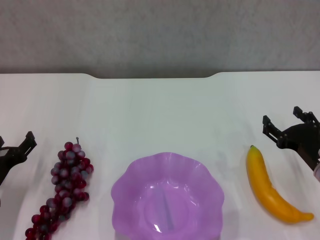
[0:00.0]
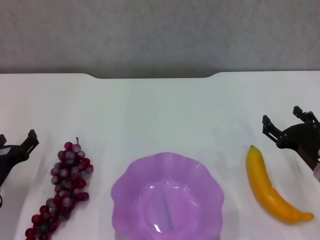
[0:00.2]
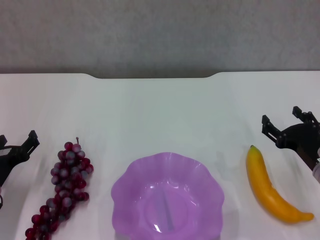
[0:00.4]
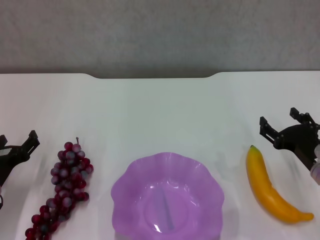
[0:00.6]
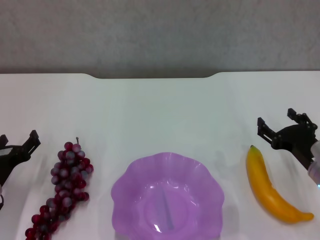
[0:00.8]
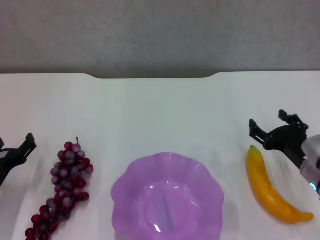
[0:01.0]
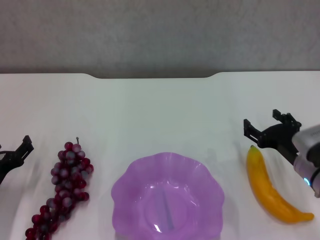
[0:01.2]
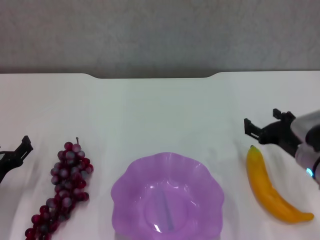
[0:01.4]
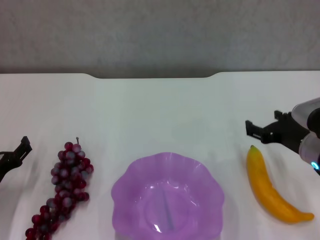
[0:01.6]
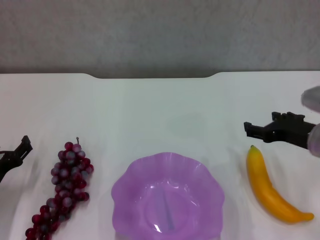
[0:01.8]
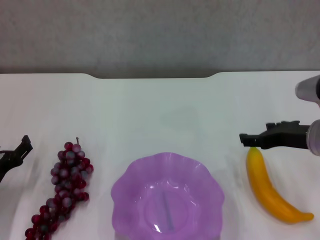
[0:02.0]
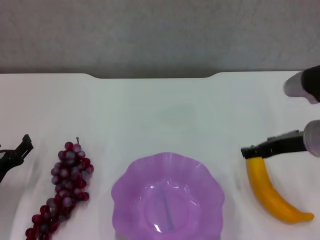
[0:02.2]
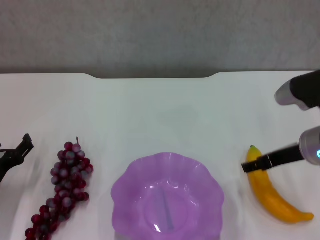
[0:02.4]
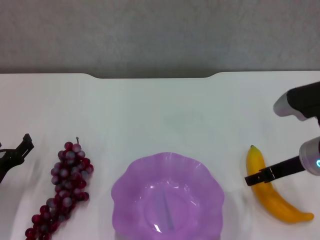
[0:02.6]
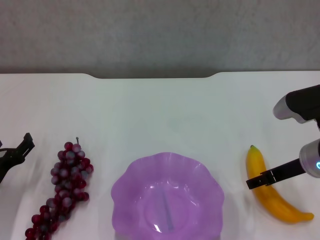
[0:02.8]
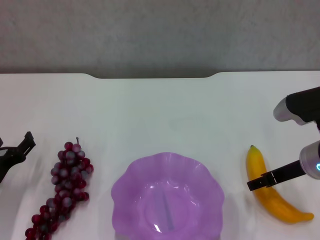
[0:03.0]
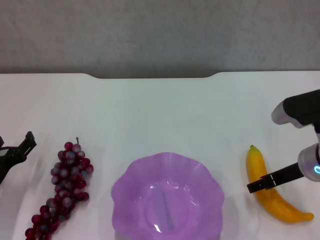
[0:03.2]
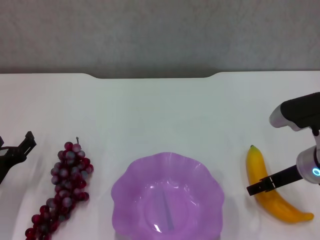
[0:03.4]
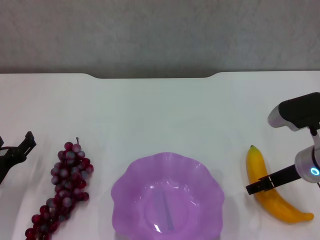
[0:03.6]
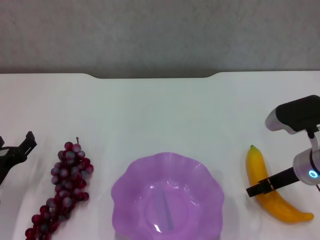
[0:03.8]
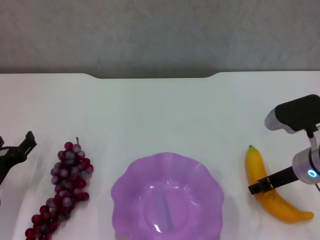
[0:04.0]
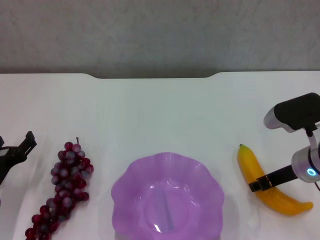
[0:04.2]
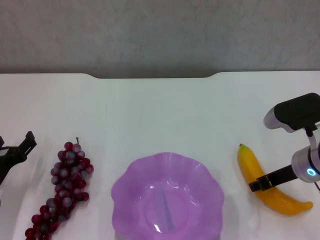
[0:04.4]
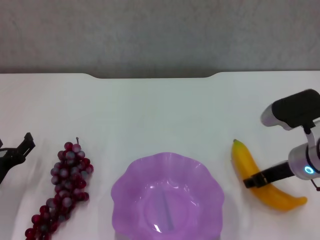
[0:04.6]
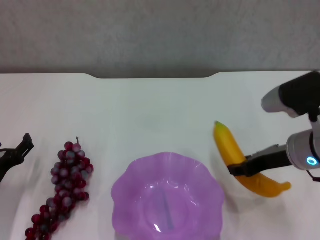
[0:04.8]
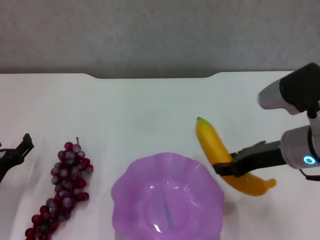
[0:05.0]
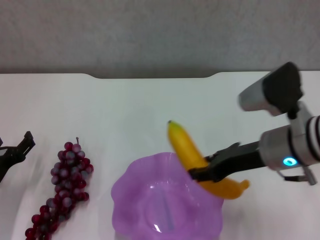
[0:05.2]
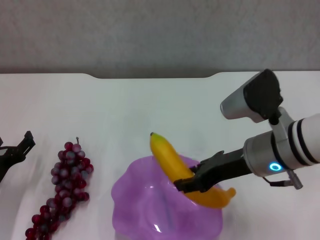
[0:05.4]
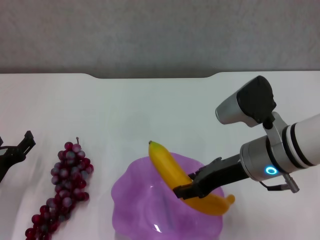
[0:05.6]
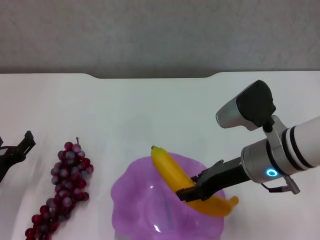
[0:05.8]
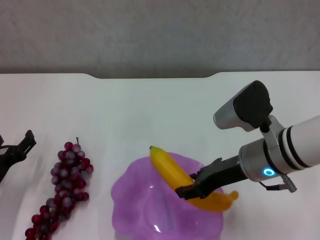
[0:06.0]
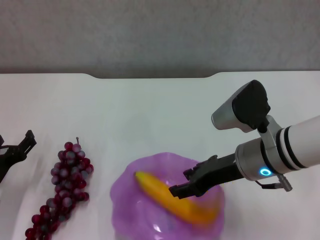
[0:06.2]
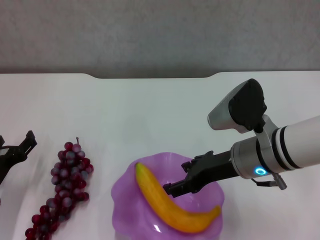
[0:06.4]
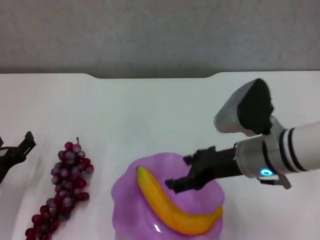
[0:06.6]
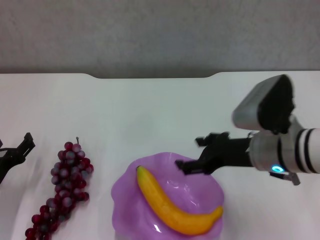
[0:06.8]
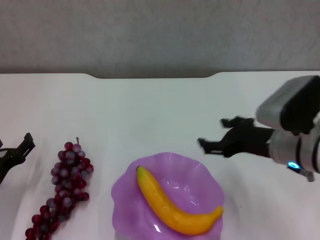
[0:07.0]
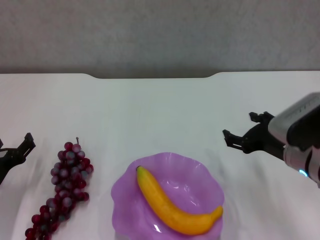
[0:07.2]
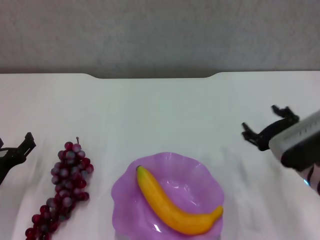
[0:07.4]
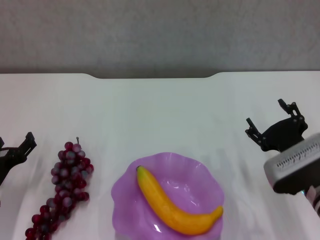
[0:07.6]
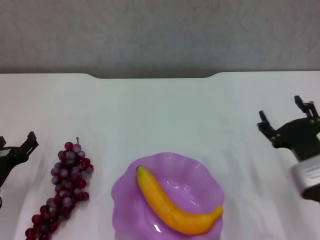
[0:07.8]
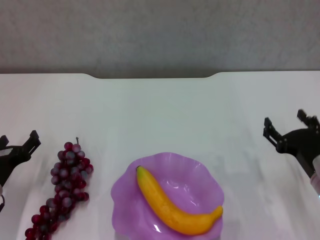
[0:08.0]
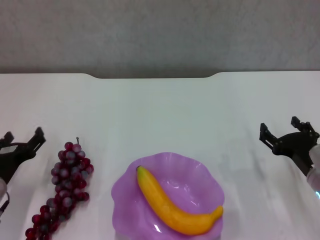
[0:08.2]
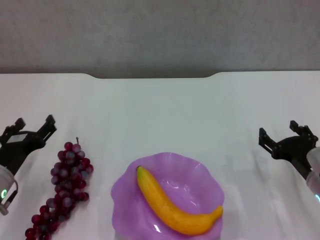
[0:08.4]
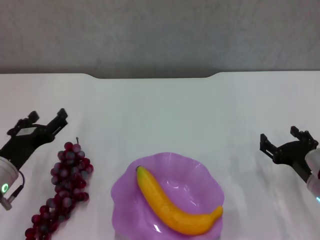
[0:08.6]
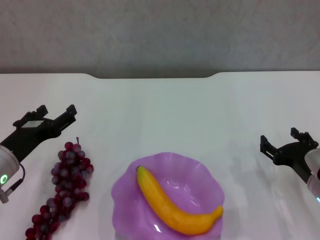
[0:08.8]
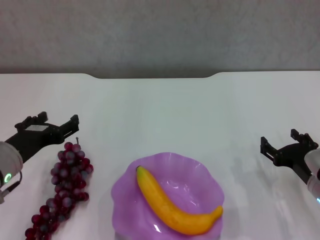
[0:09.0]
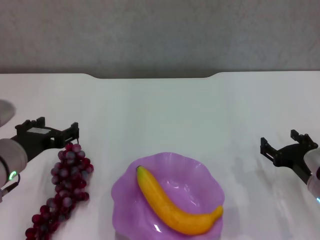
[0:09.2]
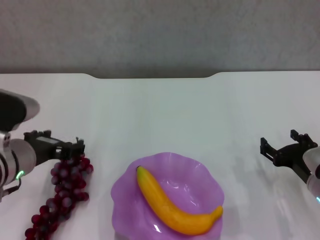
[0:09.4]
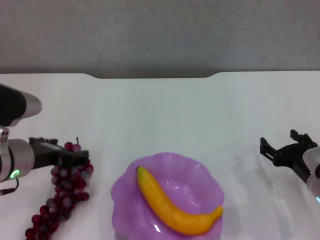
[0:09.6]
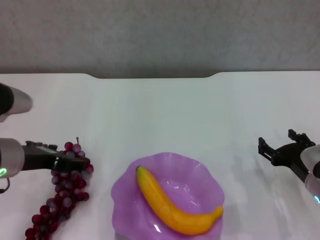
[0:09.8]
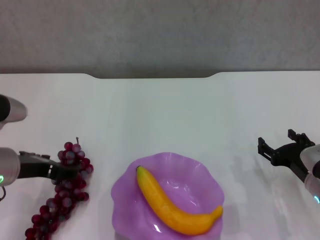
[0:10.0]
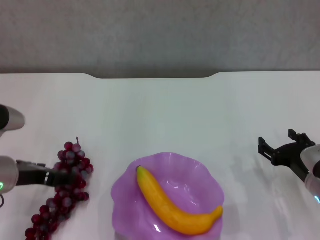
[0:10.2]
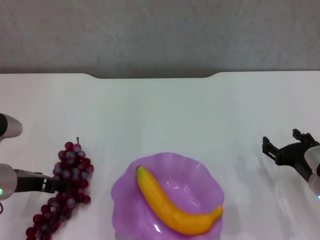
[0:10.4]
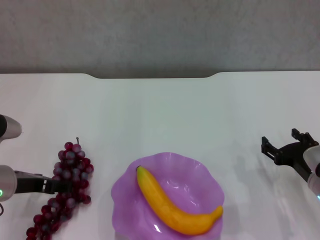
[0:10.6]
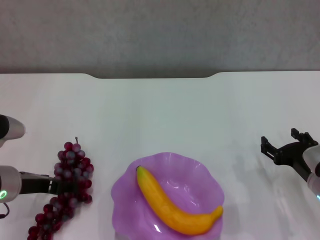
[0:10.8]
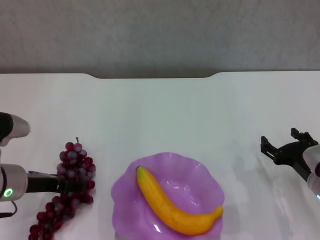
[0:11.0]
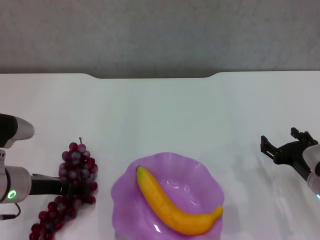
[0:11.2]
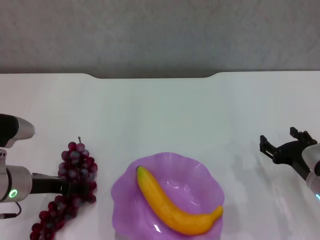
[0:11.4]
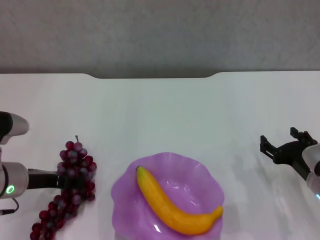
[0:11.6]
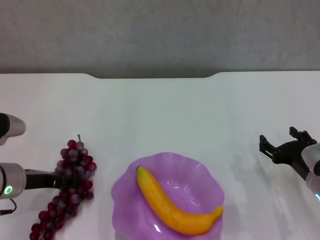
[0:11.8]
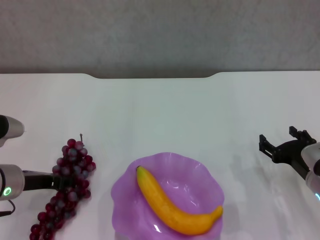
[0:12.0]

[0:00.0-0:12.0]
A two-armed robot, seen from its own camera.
Step, 0:00.0 to 0:04.2: Grasp the banana with right gripper.
Step, 0:04.4 to 0:06.4: Place the banana in the purple plate with right gripper.
Step, 0:06.8 to 0:11.2: Grasp the grape with left gripper.
0:00.0 to 0:01.6: The right gripper moves some 5 cm.
0:03.0 to 0:04.4: The right gripper closes its fingers.
0:04.4 to 0:06.0: The right gripper travels to the left by about 10 cm.
0:06.0 to 0:07.6: The right gripper moves downward and to the right, about 10 cm, and opens its fingers.
0:07.6 to 0:09.0: The right gripper shifts by about 5 cm; the left gripper is displaced upward by about 10 cm.
0:10.4 to 0:12.0: The grippers move only a little.

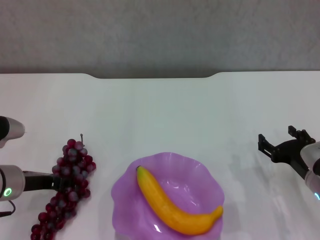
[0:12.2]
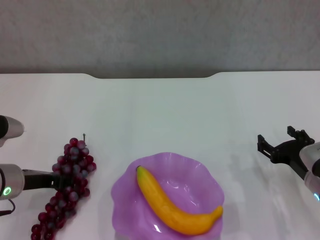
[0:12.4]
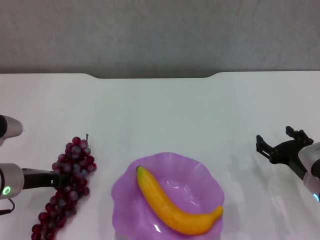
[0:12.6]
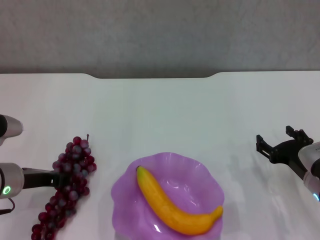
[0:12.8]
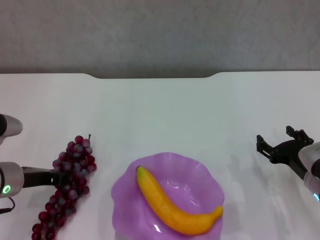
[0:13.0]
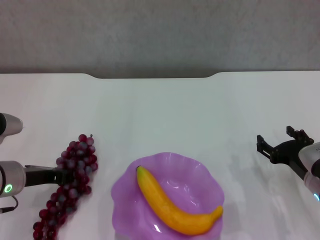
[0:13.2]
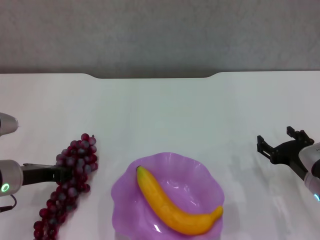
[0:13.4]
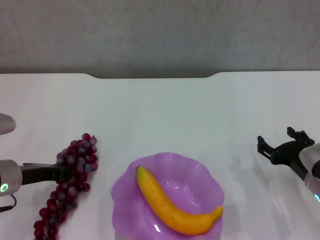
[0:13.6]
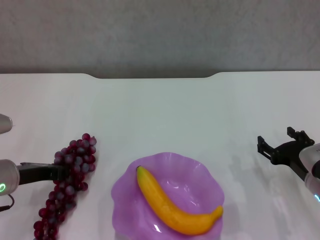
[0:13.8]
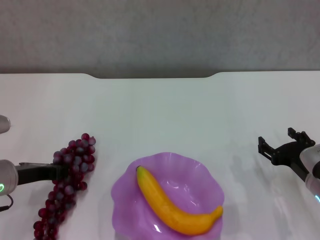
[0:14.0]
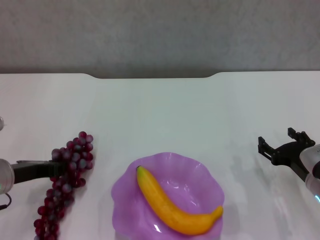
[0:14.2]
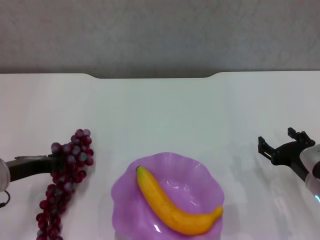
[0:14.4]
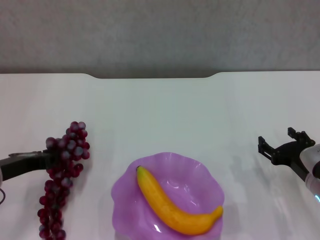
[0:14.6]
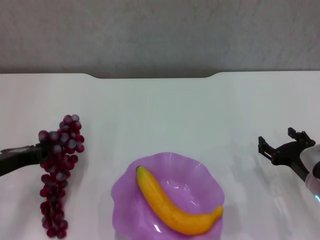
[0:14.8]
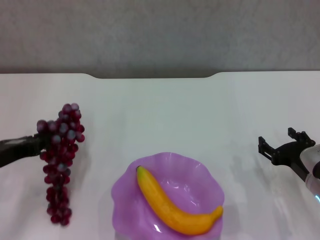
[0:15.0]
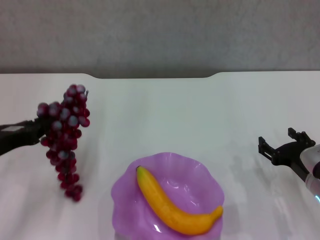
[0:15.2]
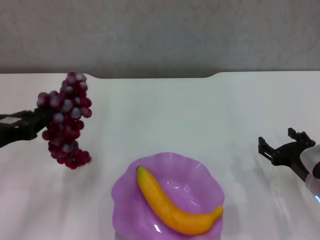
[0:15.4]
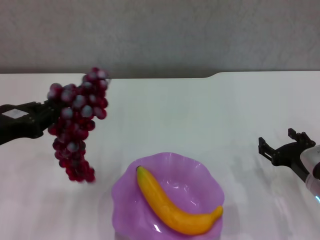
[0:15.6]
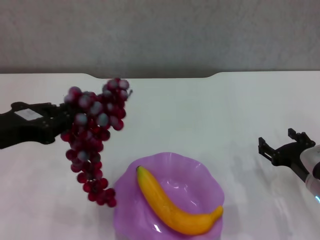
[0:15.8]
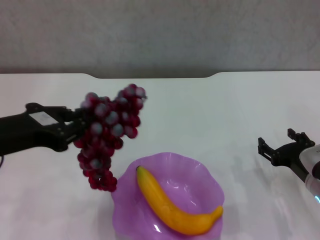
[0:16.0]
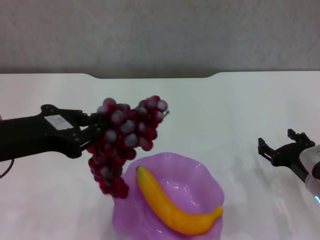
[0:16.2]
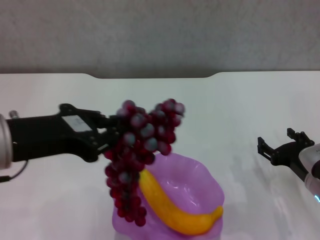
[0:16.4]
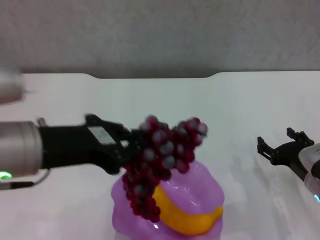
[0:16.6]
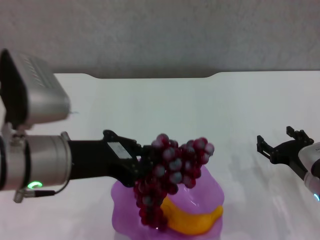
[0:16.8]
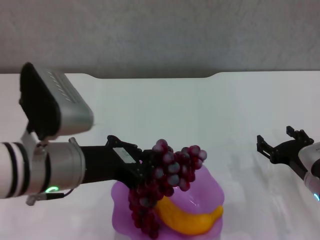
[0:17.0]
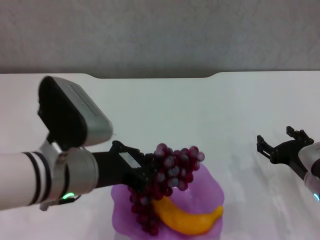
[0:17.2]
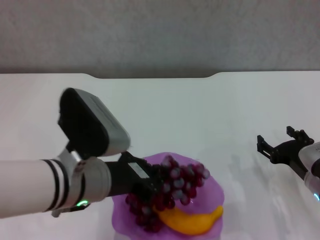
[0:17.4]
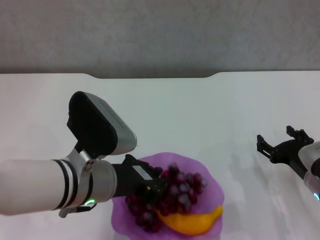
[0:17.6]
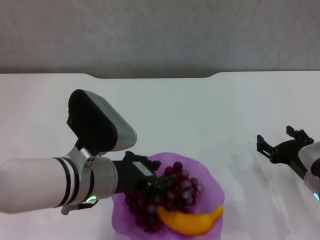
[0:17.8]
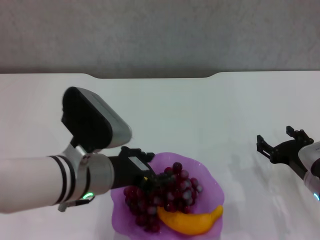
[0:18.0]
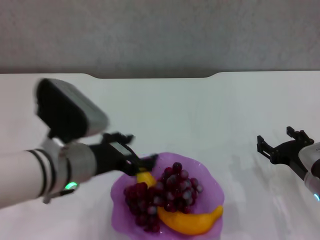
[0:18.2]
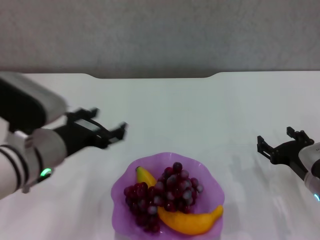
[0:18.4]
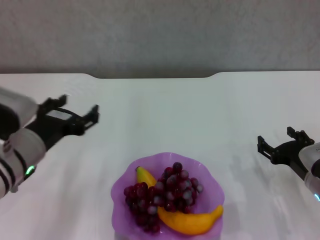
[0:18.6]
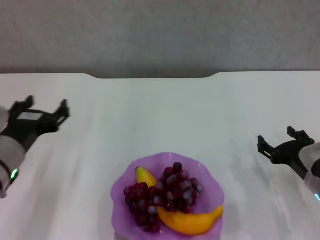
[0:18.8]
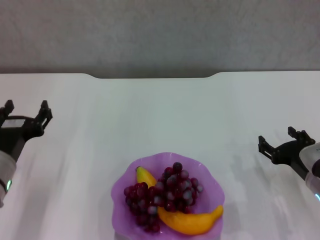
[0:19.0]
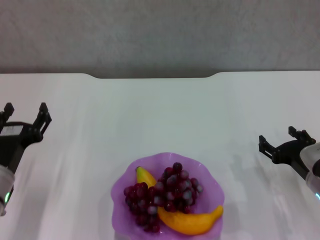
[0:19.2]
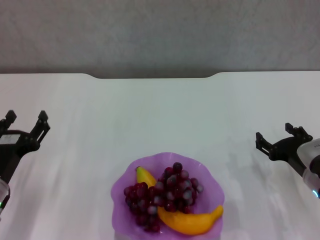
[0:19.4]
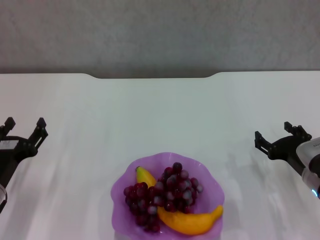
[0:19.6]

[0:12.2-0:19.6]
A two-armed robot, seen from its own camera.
Step, 0:12.2 to 0:18.2: Place the grape in the purple plate with left gripper.
0:12.2 to 0:13.6: The left gripper closes its fingers.
0:13.6 to 0:15.2: The left gripper changes place by about 5 cm.
0:15.2 to 0:16.6: The left gripper travels to the right and upward by roughly 15 cm.
0:16.6 to 0:18.2: The left gripper moves downward, approximately 10 cm, and opens its fingers.
0:18.2 to 0:19.6: The left gripper goes about 15 cm to the left and downward.

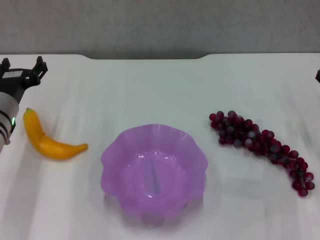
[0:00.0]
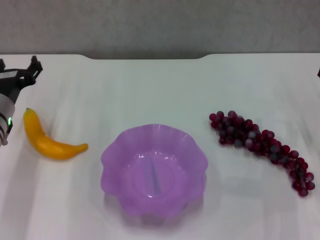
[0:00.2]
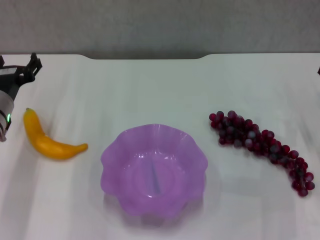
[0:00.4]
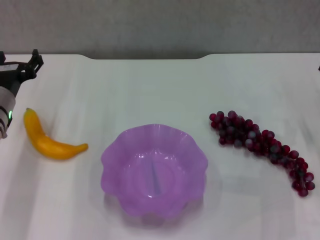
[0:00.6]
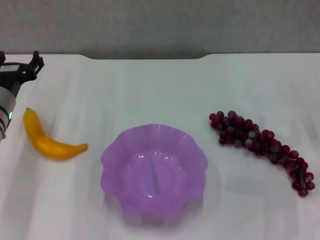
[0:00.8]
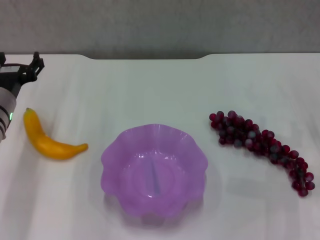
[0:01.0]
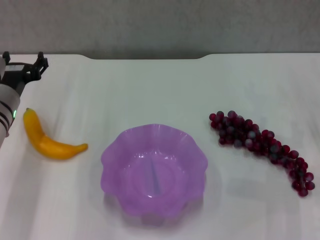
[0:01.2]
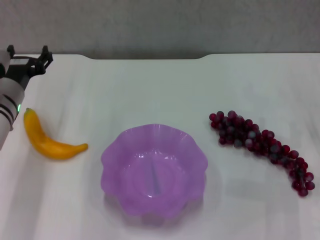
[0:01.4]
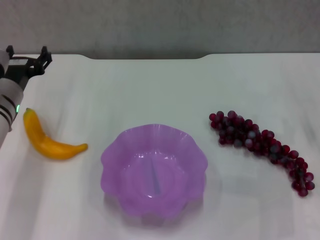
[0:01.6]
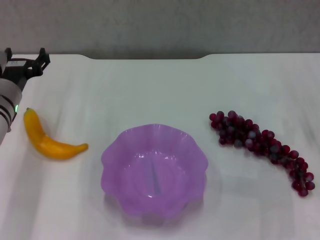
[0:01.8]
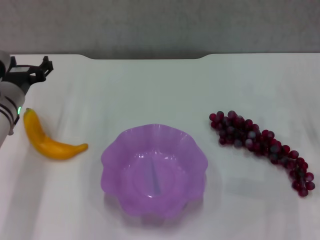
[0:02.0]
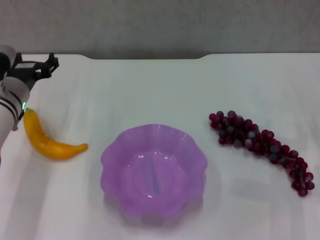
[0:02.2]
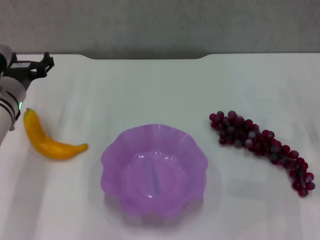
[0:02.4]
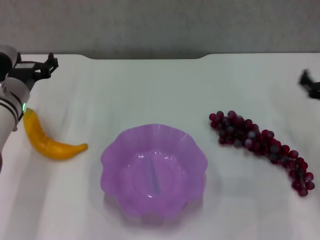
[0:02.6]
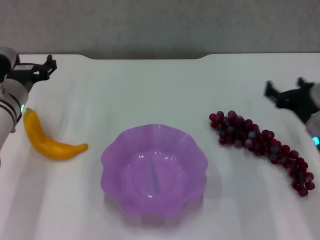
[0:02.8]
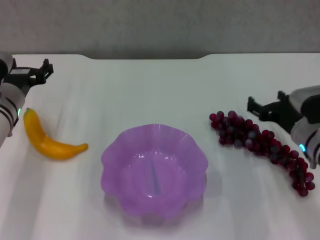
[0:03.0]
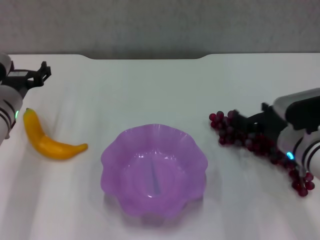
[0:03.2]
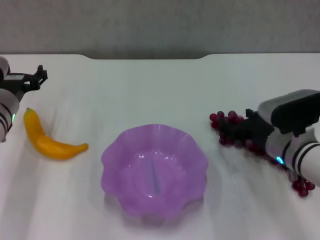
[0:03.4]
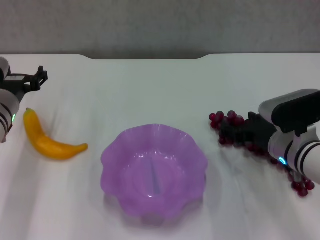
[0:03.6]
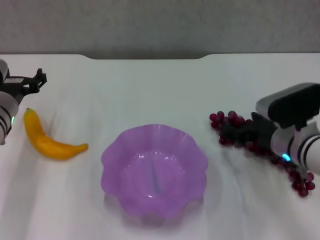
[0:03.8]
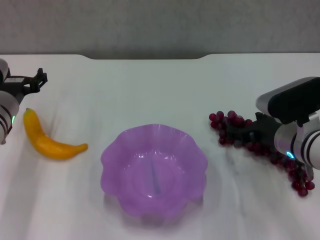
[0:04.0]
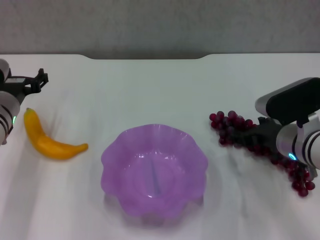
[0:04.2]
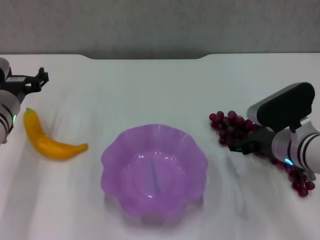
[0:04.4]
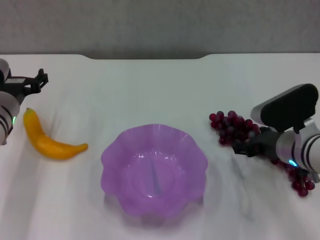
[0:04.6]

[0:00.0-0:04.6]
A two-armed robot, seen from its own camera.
0:00.0 to 0:01.6: The grippers move only a little.
0:01.6 to 0:03.0: The right gripper travels to the left by about 5 cm.
